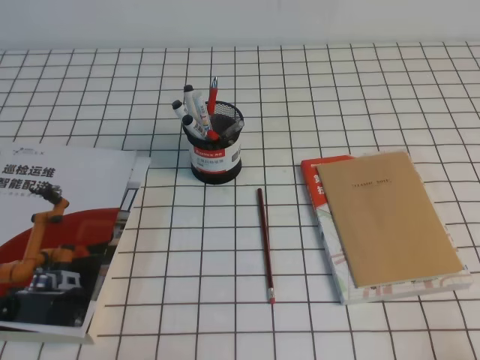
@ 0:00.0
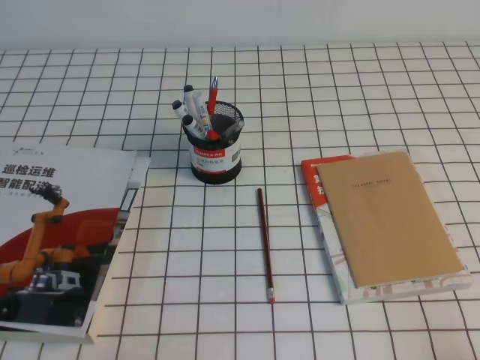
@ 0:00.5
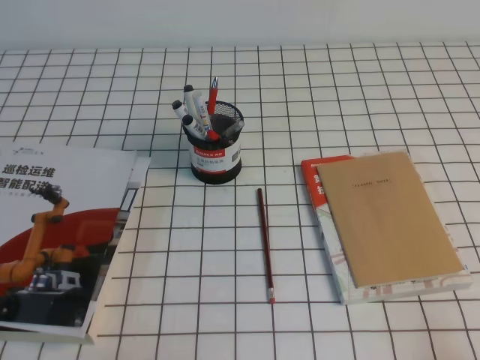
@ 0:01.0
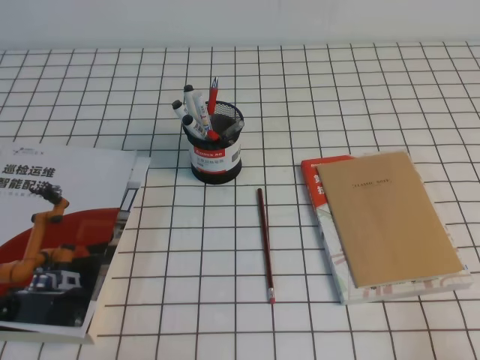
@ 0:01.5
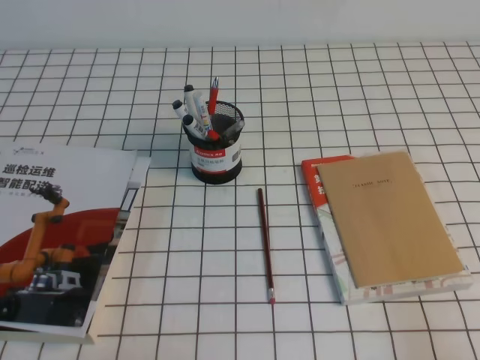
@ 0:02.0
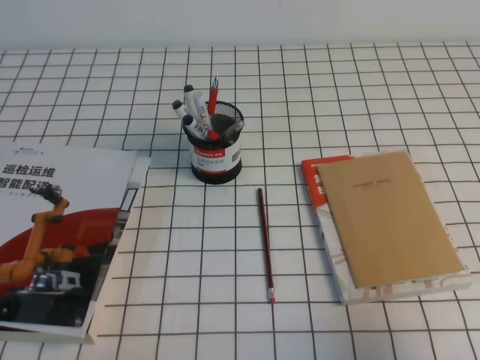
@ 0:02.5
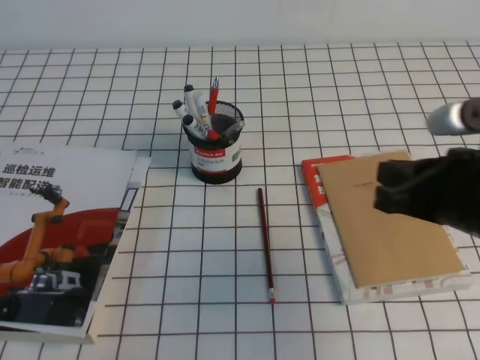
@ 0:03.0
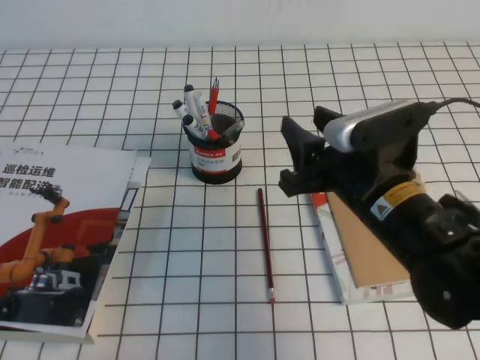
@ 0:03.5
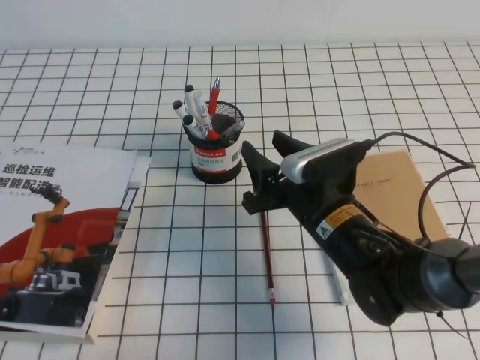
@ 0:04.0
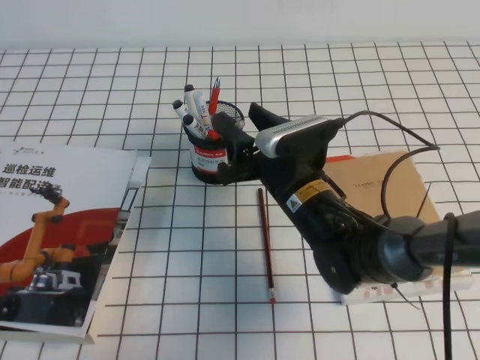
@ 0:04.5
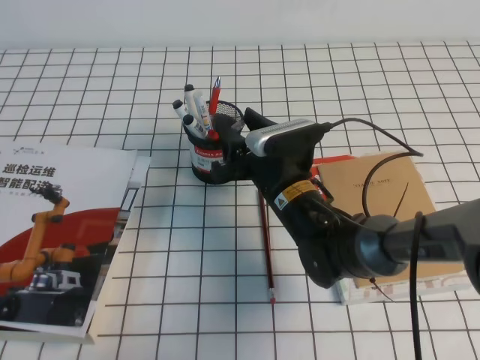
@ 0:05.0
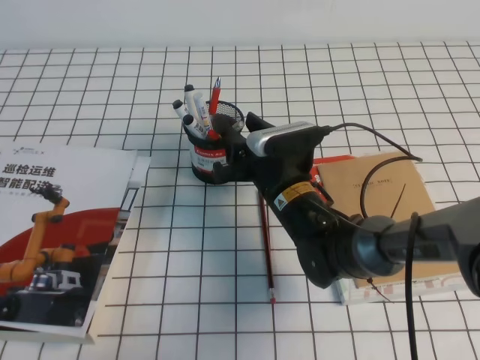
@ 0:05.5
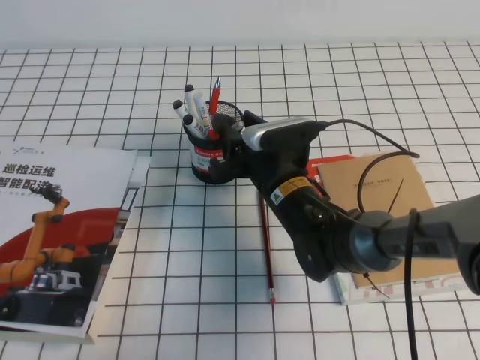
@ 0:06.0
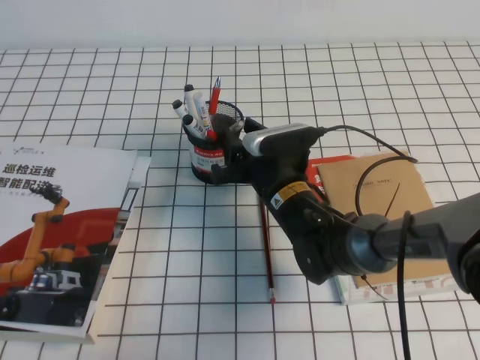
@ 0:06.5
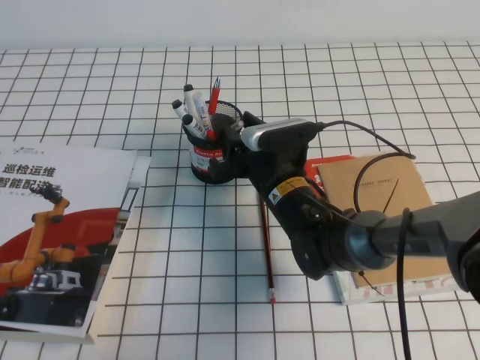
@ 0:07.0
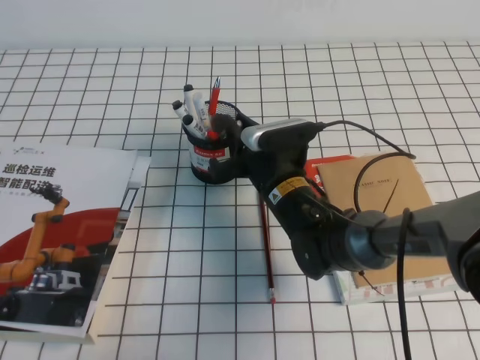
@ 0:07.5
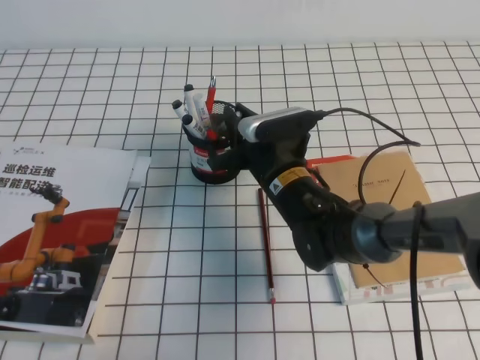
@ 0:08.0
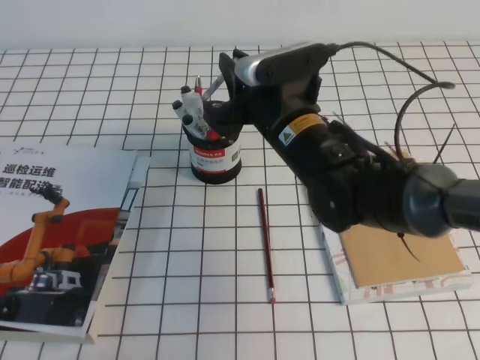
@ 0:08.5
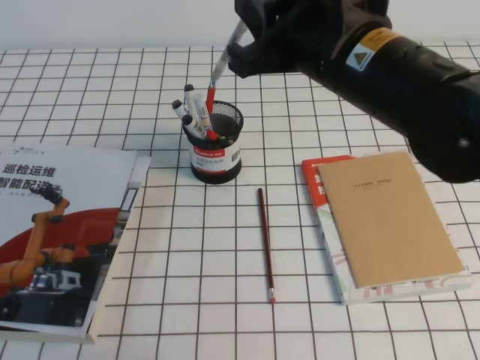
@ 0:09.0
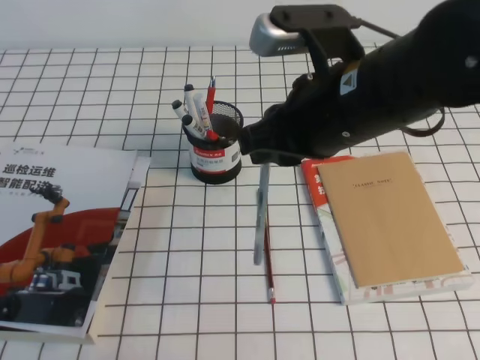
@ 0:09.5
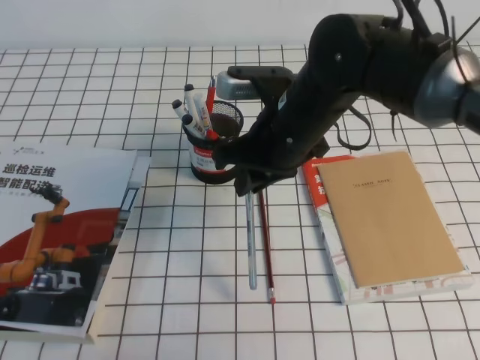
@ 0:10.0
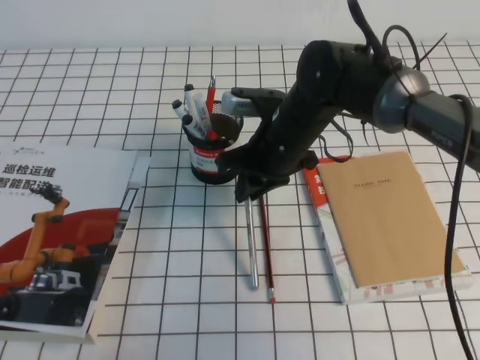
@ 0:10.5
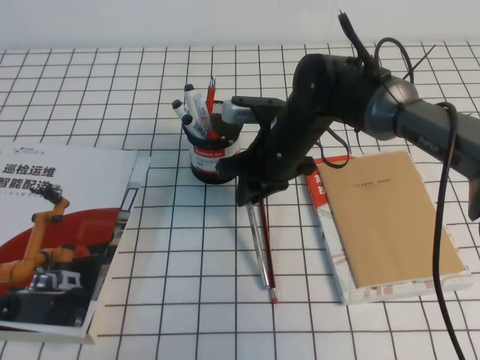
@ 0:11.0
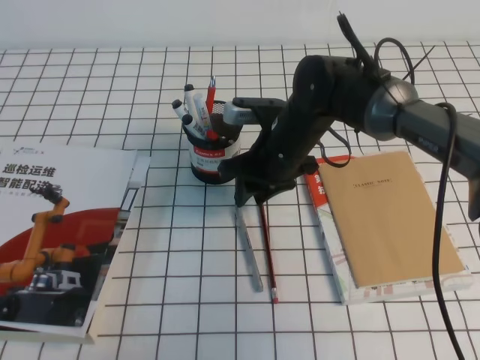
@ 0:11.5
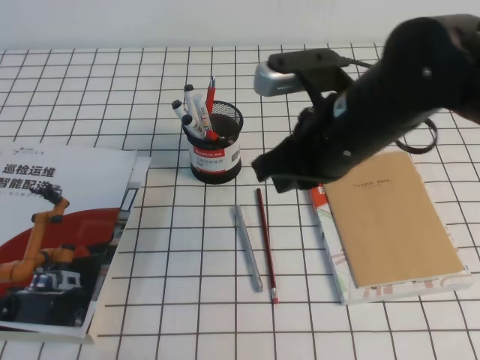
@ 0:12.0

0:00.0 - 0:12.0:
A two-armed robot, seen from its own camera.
0:02.0 - 0:04.0: The right gripper heads to the left and forward, covering some 35 cm, and opens its fingers.
0:04.0 - 0:06.0: The right gripper shifts some 10 cm forward and to the left.
0:06.0 - 0:08.0: The right gripper closes.
0:08.0 - 0:10.0: The right gripper moves upward, about 10 cm.
0:10.0 - 0:12.0: The right gripper reaches about 10 cm downward, then returns.

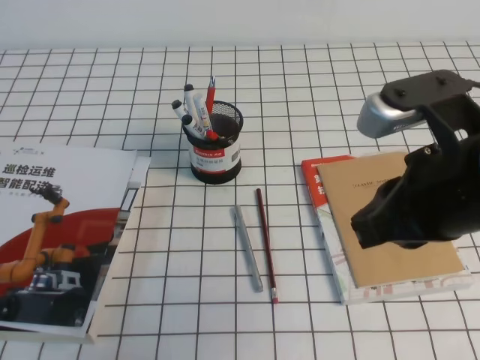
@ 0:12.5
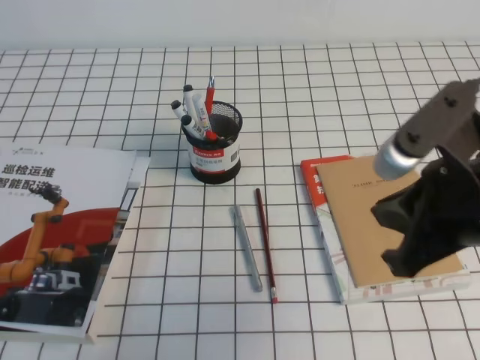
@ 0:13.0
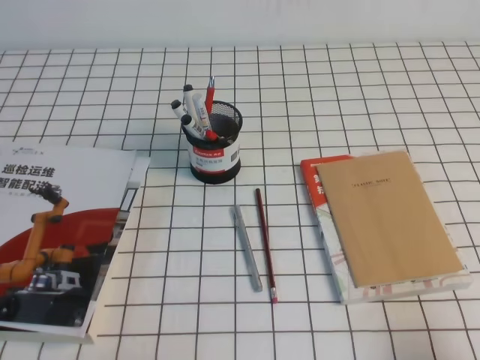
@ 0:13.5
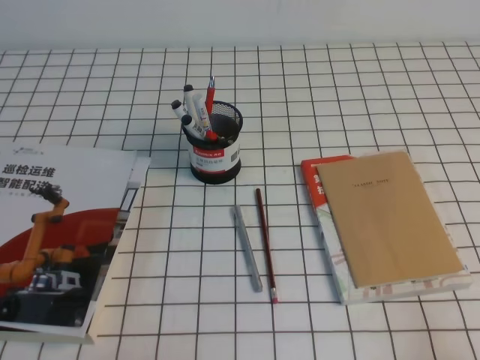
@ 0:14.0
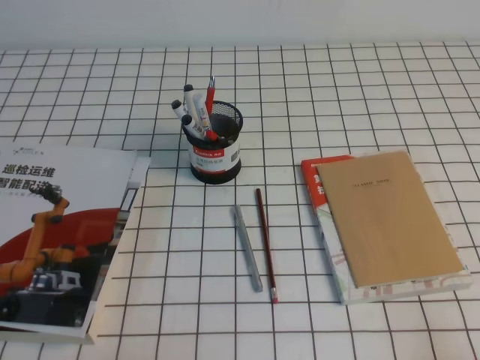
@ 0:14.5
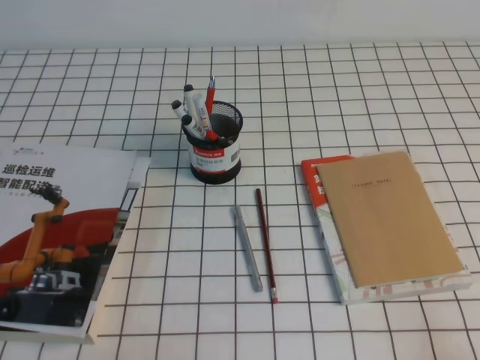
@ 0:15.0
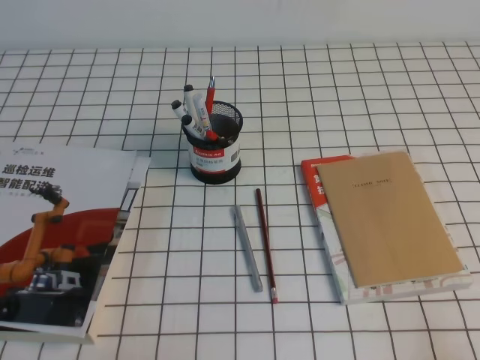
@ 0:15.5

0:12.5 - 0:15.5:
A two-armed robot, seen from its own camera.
Step, 0:12.5 - 0:15.5: Pick up the pen from the pen holder.
0:12.5 - 0:14.0: The right gripper heads downward, to the right and backward, covering roughly 25 cm.
